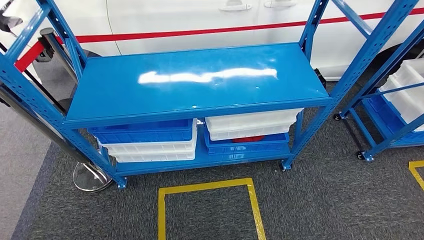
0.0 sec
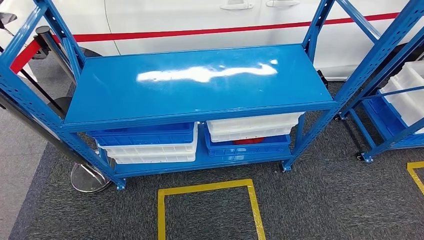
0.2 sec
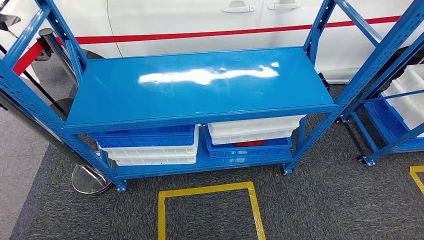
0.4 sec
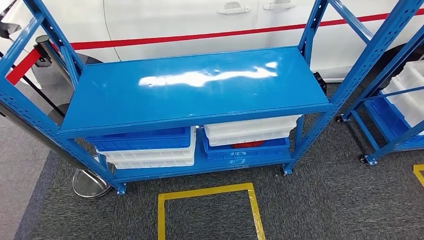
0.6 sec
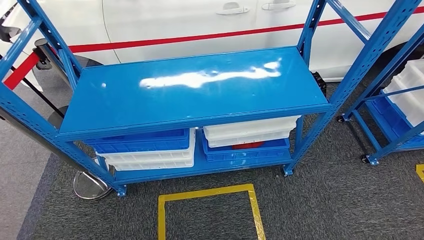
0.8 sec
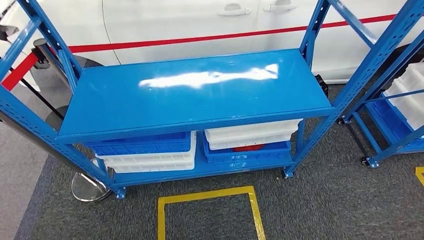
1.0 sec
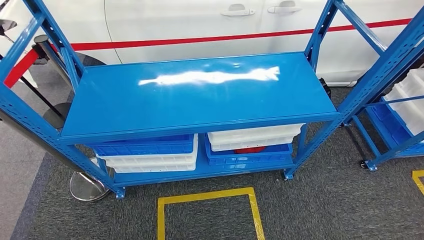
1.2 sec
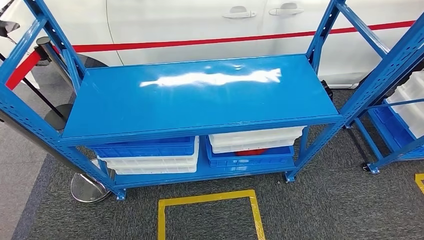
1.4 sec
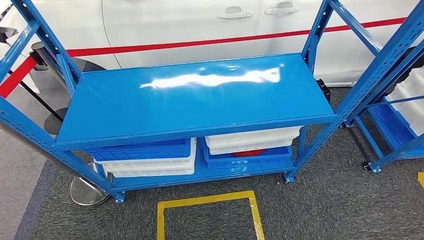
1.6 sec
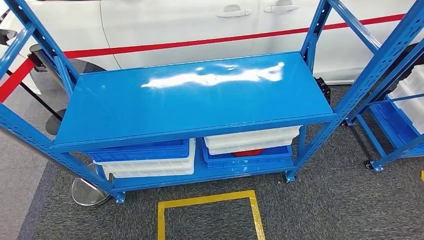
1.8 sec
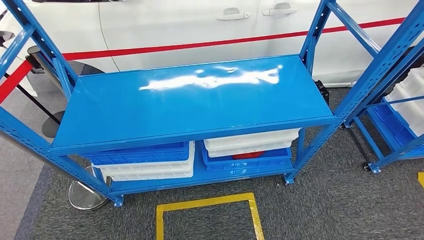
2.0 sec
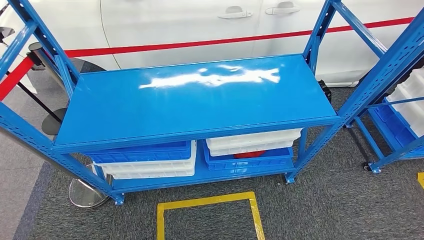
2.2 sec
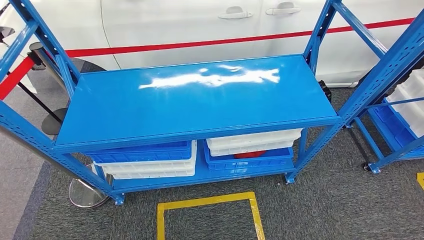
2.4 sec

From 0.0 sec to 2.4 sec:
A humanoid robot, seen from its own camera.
Step, from 0.0 sec to 2.4 sec: Move to the initial position of the shelf.
